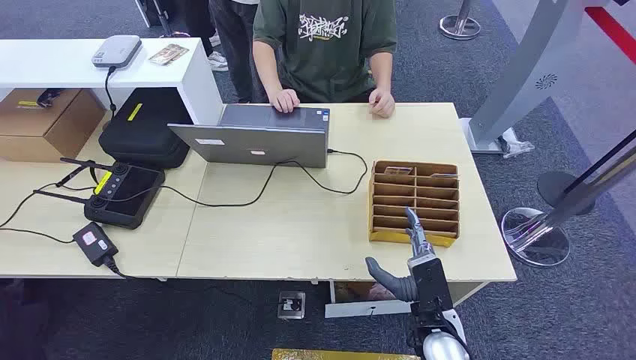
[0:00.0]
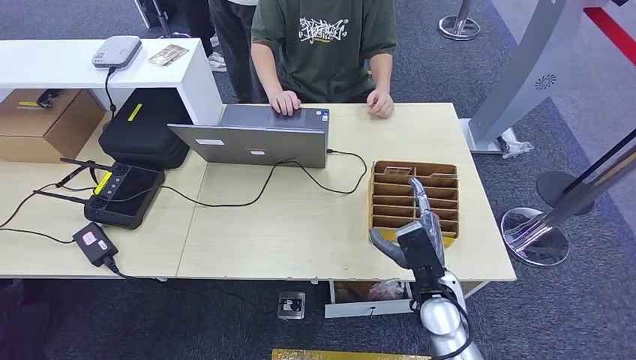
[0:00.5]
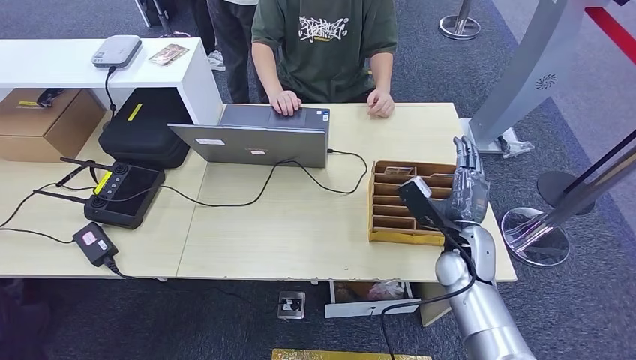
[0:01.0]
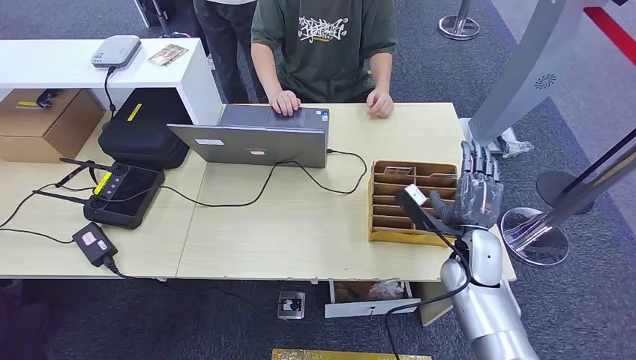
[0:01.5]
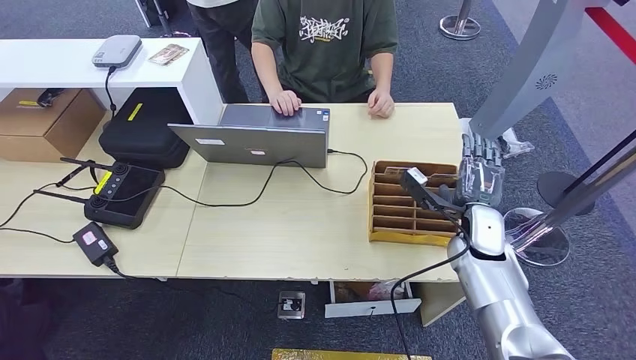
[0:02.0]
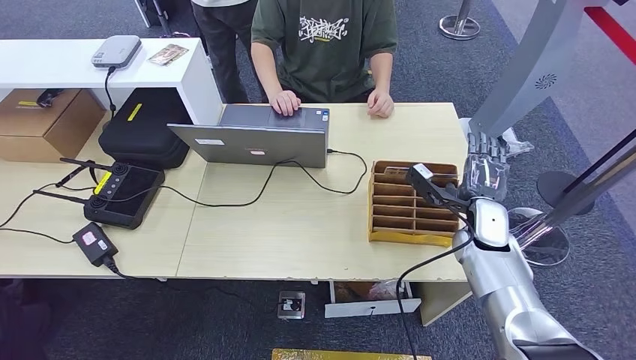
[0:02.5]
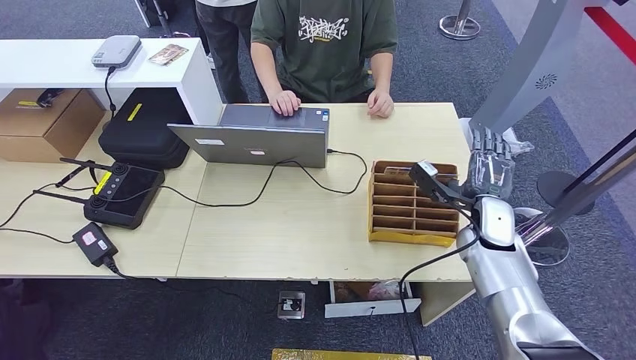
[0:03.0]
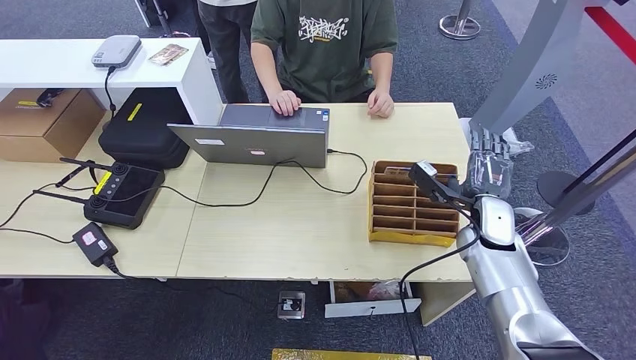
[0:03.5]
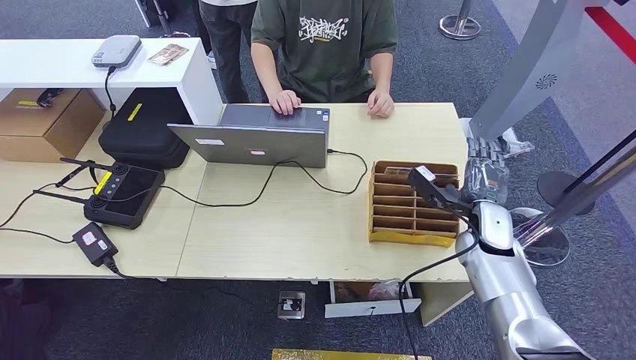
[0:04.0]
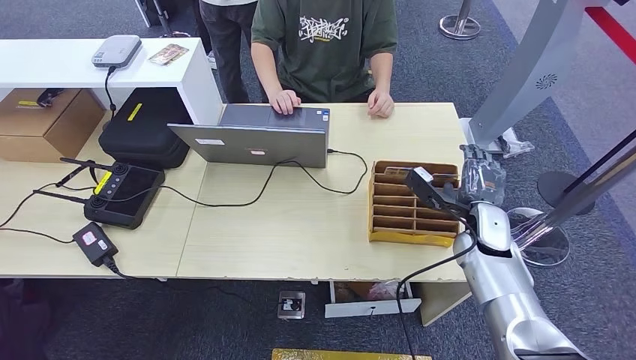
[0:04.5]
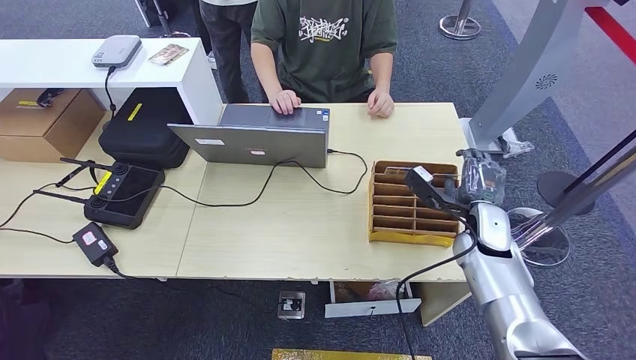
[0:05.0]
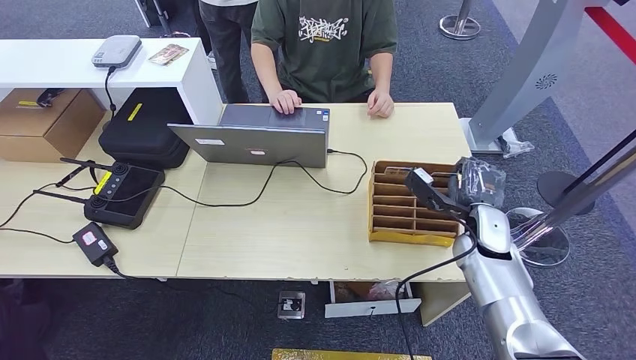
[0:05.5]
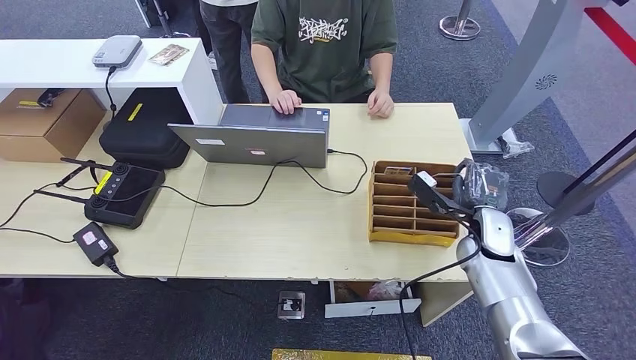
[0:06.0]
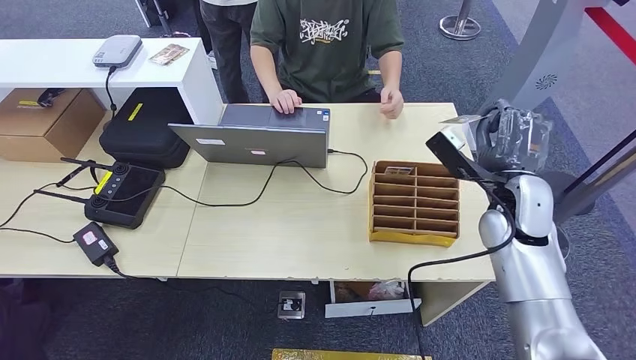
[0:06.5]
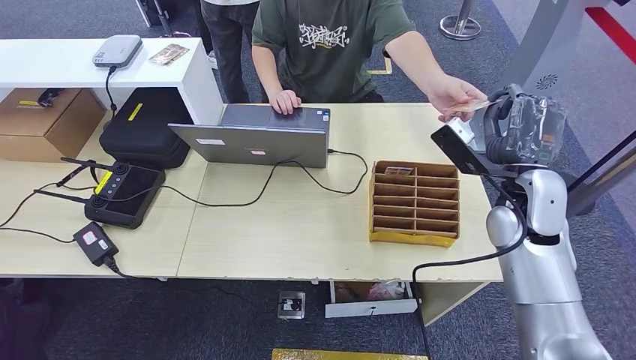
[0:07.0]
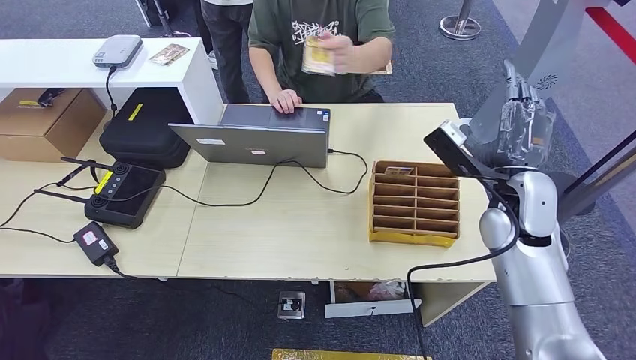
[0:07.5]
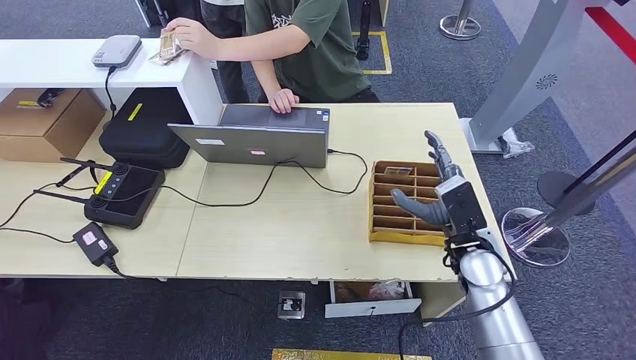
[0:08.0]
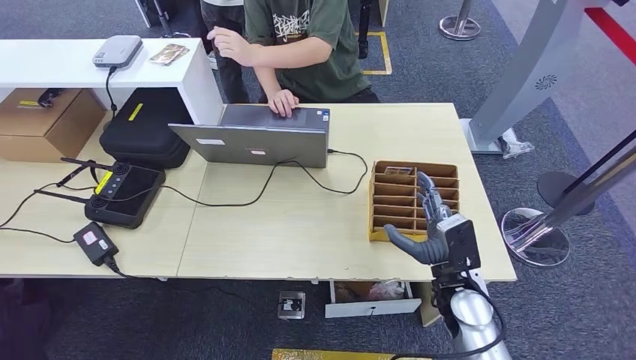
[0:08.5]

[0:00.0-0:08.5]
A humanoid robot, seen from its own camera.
Step, 0:00.0 to 0:06.0: Pick up the room card from the card holder.
Step, 0:06.5 to 0:08.5: Hand the room card to the target.
0:02.0 to 0:04.0: There are only small adjustments of the hands.
0:04.0 to 0:06.5: The right hand is displaced upward by about 10 cm.
0:06.5 to 0:08.5: The right hand goes approximately 20 cm downward, backward and to the left.
